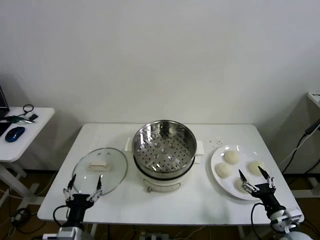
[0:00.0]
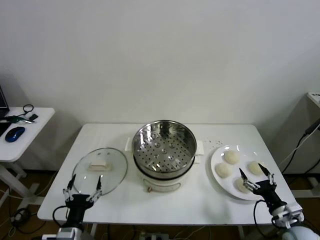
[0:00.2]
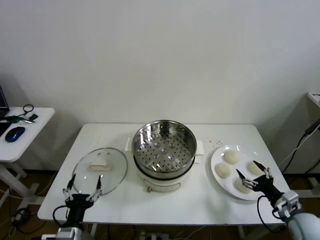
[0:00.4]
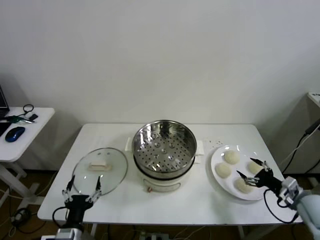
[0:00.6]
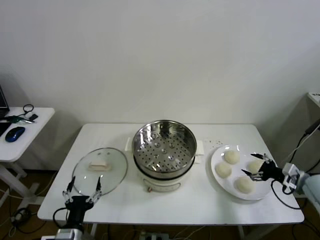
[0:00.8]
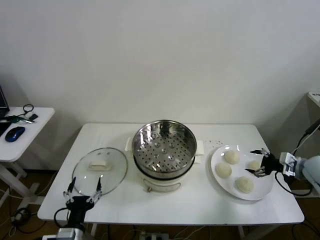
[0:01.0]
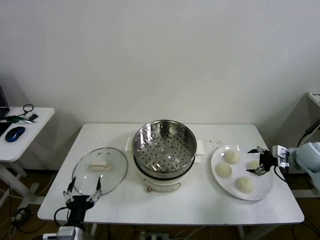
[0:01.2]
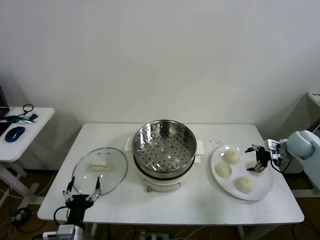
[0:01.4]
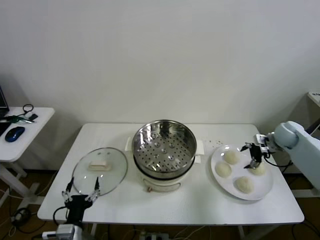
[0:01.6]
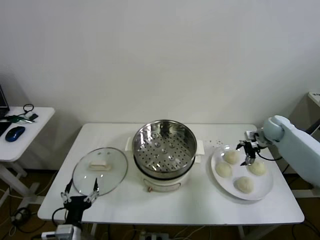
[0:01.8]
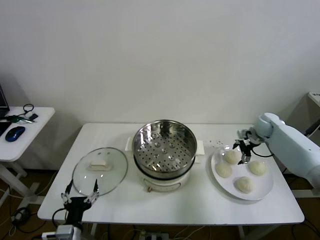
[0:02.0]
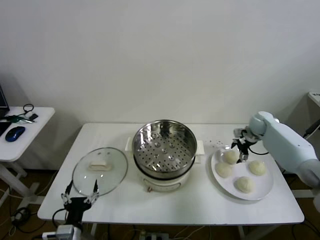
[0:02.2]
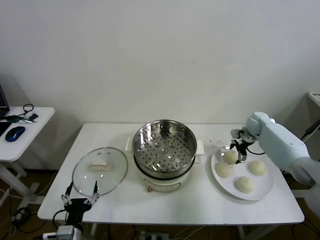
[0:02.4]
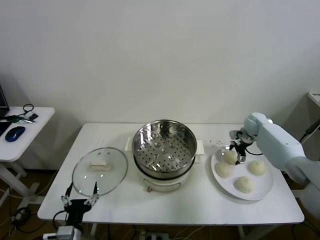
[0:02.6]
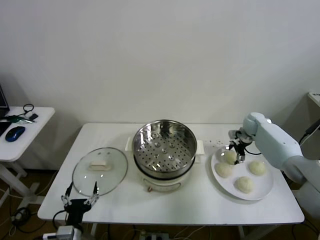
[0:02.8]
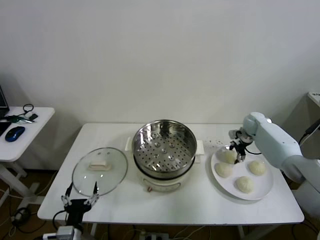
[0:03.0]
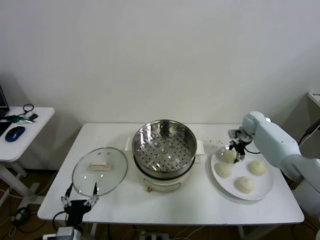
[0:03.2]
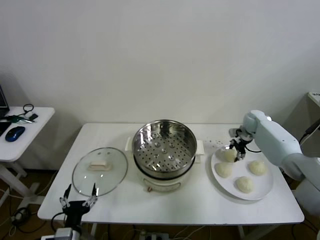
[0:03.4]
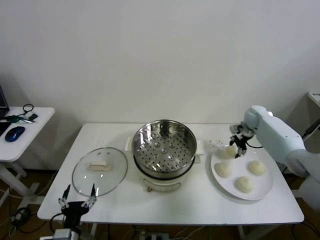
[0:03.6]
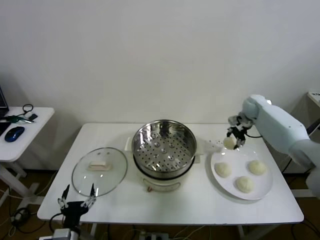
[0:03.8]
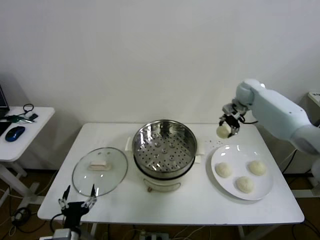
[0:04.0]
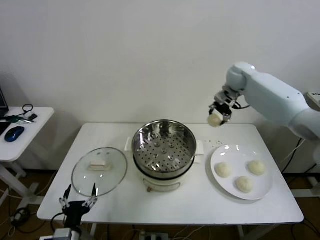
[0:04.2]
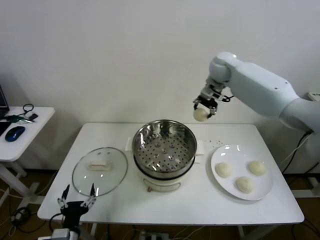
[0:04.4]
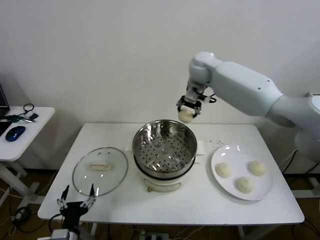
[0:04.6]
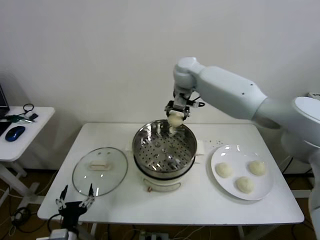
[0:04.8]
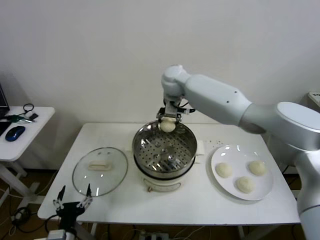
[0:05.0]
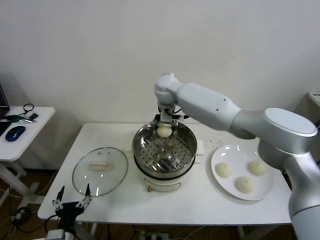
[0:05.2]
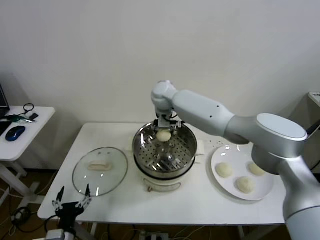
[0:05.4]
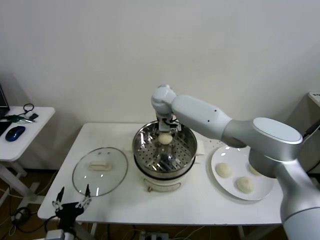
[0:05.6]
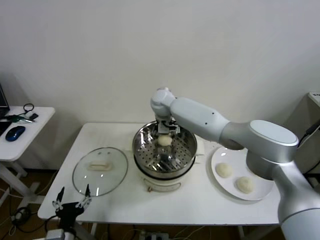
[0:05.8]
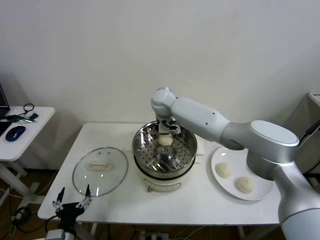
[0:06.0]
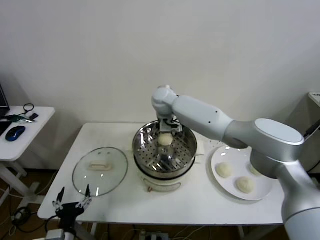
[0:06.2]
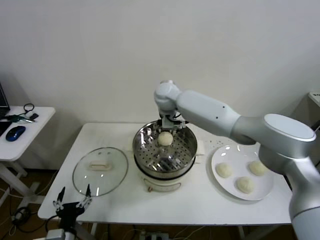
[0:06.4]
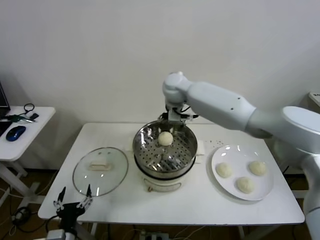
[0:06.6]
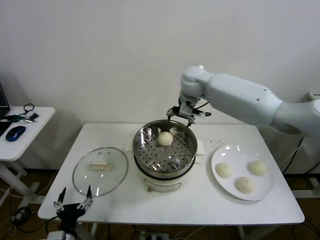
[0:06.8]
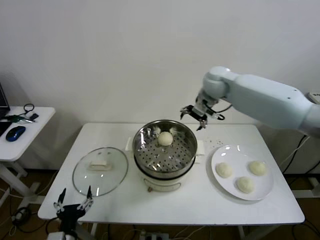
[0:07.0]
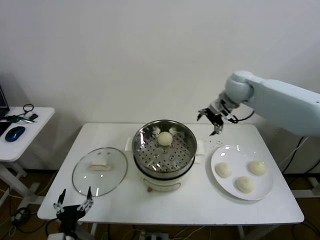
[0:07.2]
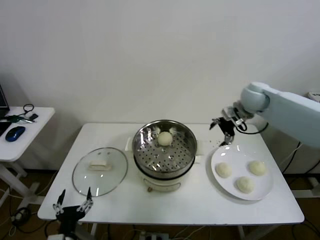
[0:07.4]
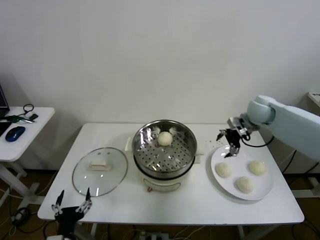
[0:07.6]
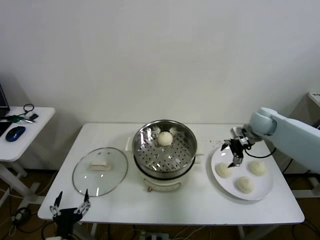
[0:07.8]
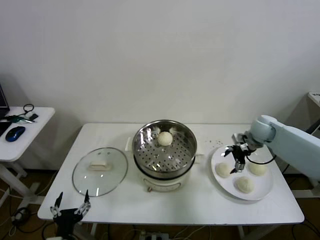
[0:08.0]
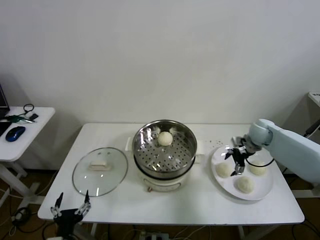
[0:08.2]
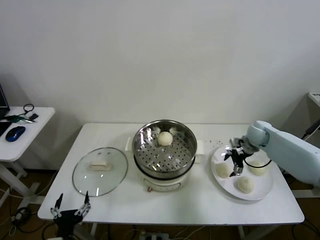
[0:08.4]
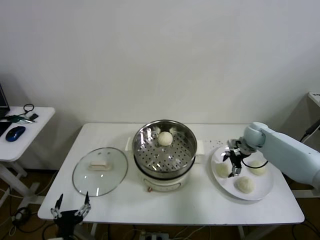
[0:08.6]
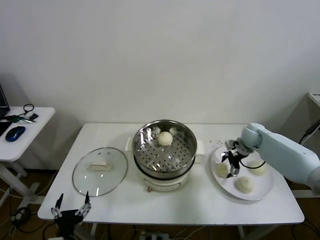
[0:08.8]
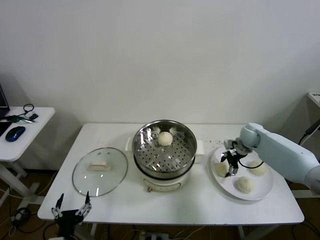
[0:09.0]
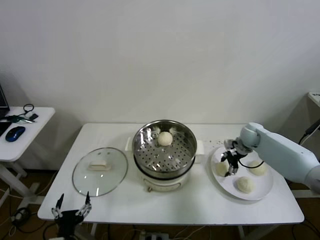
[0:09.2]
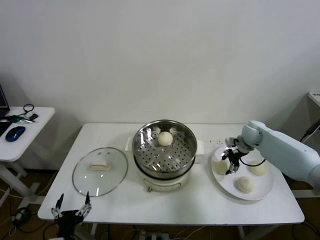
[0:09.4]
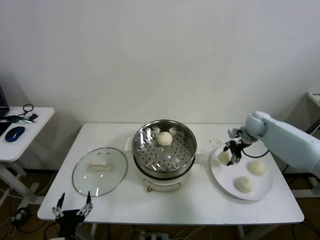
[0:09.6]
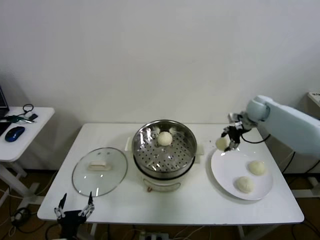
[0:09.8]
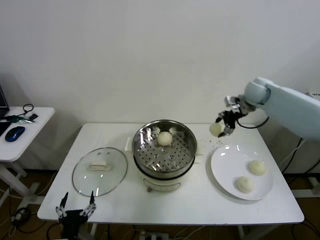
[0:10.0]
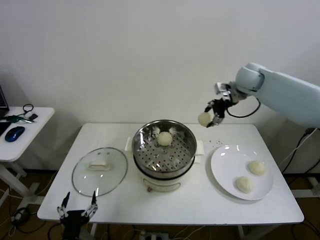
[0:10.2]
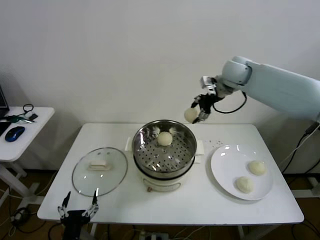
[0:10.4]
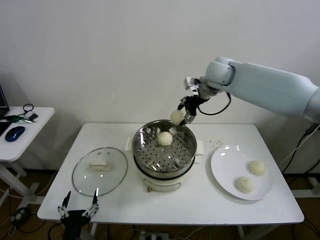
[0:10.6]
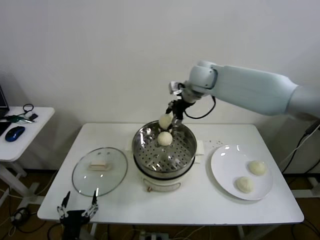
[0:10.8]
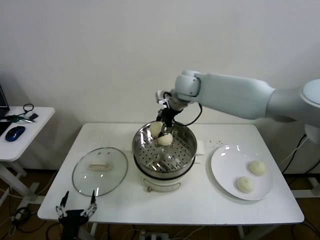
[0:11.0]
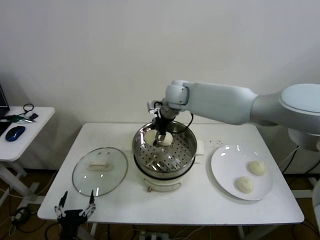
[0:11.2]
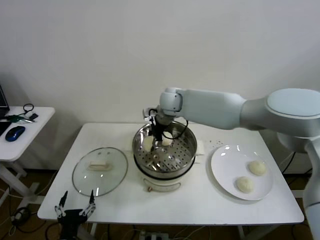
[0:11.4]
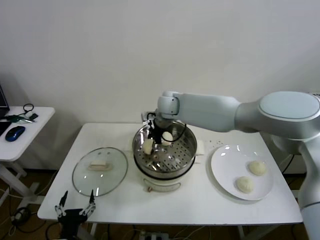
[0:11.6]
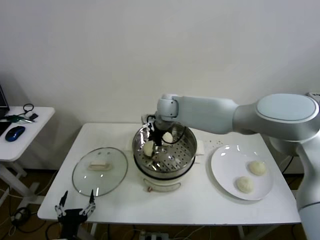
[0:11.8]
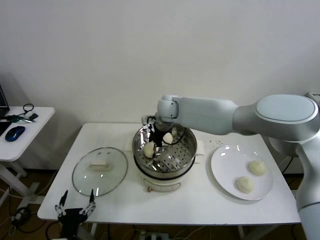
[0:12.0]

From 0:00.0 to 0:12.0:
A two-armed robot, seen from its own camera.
Step, from 0:00.0 to 0:03.0: Grasp the baozi in the plate with right gripper.
Step, from 0:03.2 to 0:06.0: Place the baozi on the steamer with right gripper.
Step, from 0:06.2 to 0:09.2: Grasp the baozi in the plate with right gripper.
From 0:01.6 to 0:03.0: The right gripper shifts roughly 10 cm forward and to the left, and closes.
From 0:03.0 to 0:04.4: The right gripper heads upward and to the left, covering about 30 cm.
From 0:04.4 to 0:06.0: The right gripper travels to the left and downward by some 25 cm, and opens its fingers.
From 0:06.0 to 0:07.6: The right gripper moves to the right, some 35 cm.
From 0:07.6 to 0:09.0: The right gripper travels downward by roughly 15 cm, and closes its fingers.
From 0:09.0 to 0:10.4: The right gripper is displaced upward and to the left by about 30 cm.
From 0:10.4 to 0:12.0: The right gripper shifts approximately 25 cm to the left and downward, and opens its fingers.

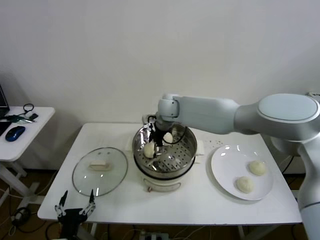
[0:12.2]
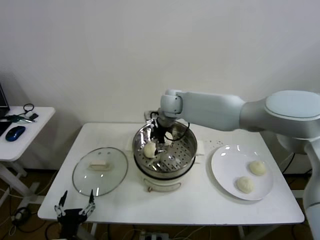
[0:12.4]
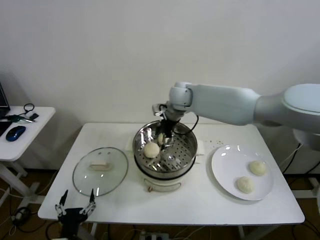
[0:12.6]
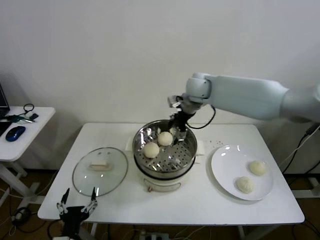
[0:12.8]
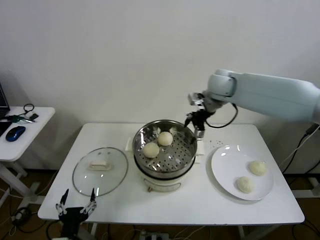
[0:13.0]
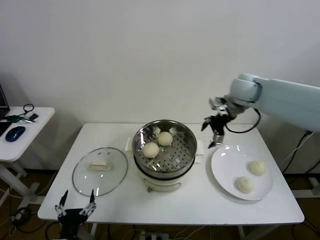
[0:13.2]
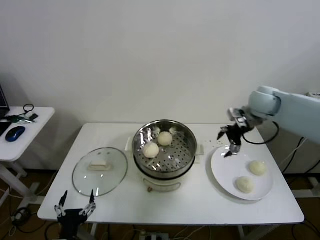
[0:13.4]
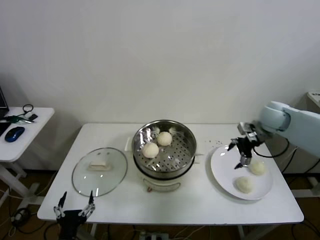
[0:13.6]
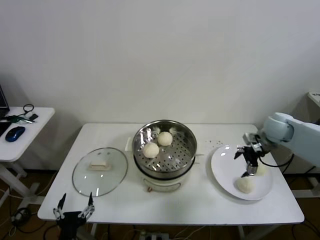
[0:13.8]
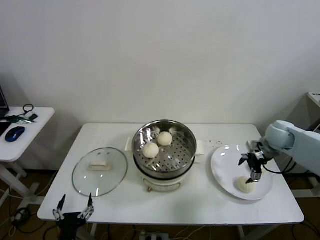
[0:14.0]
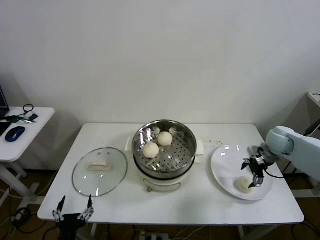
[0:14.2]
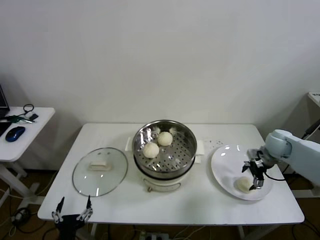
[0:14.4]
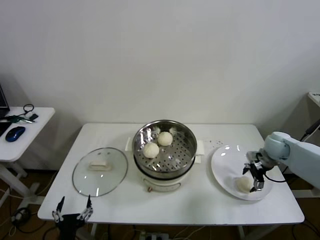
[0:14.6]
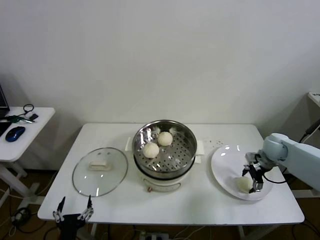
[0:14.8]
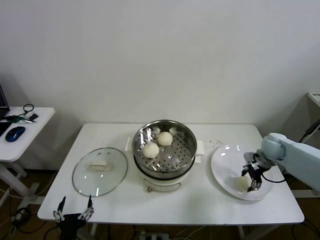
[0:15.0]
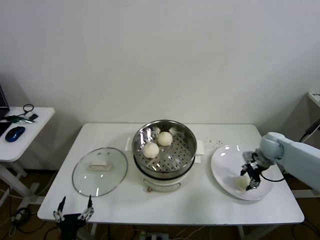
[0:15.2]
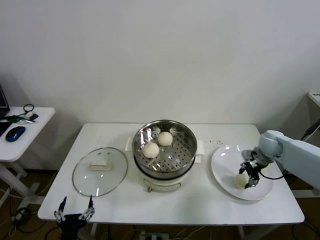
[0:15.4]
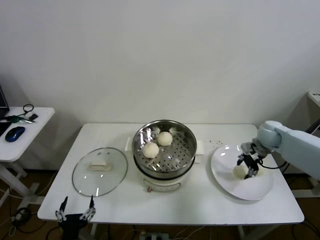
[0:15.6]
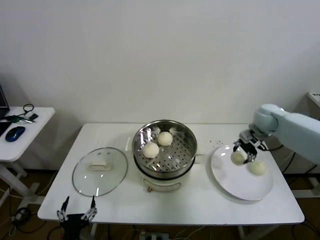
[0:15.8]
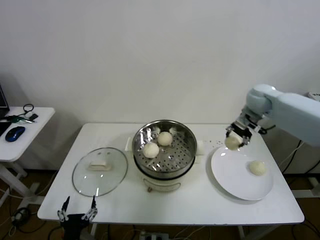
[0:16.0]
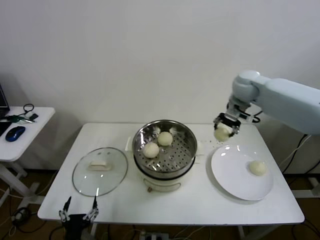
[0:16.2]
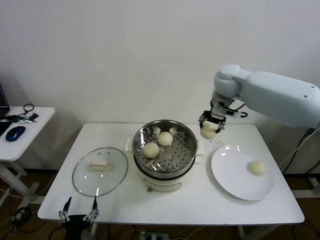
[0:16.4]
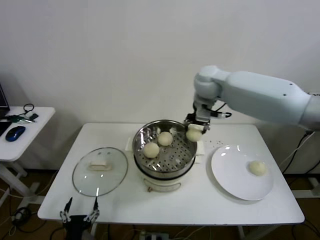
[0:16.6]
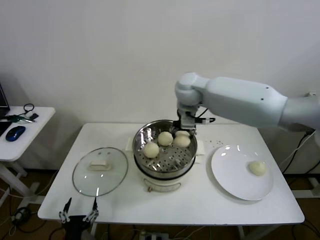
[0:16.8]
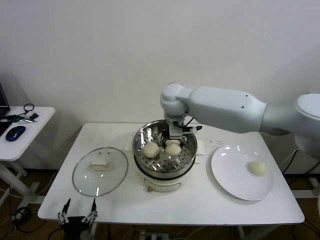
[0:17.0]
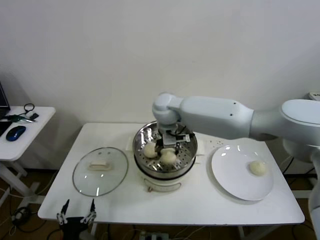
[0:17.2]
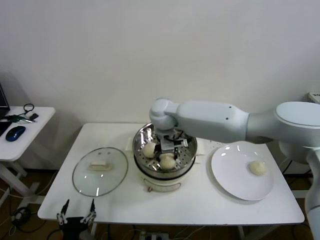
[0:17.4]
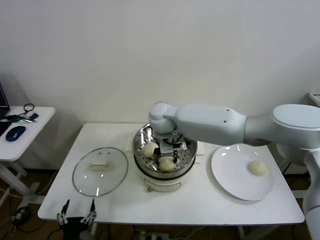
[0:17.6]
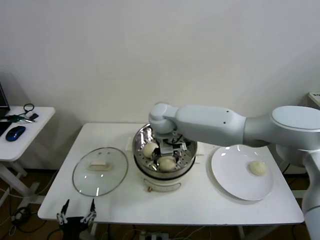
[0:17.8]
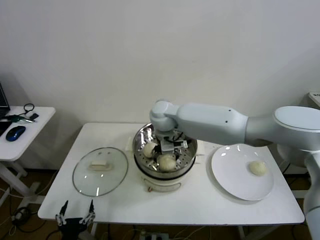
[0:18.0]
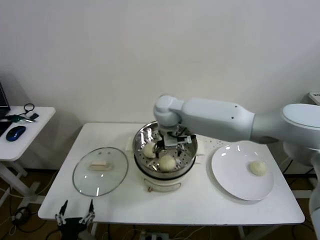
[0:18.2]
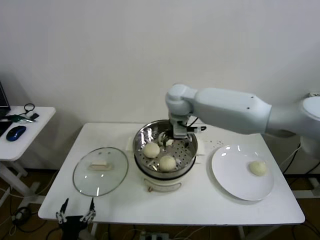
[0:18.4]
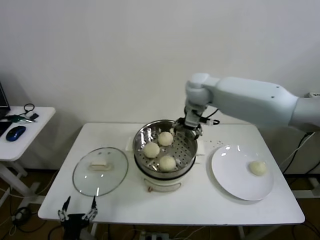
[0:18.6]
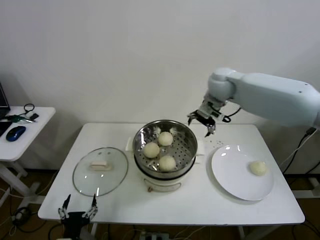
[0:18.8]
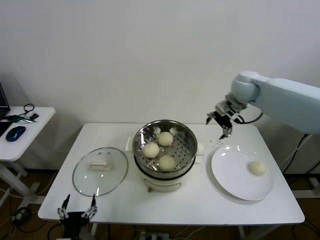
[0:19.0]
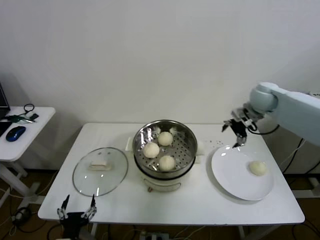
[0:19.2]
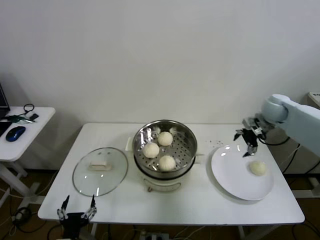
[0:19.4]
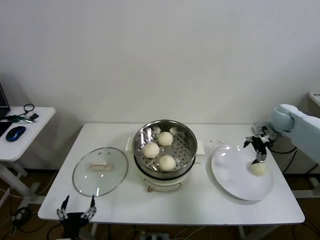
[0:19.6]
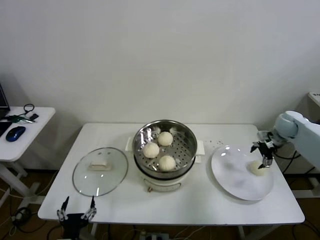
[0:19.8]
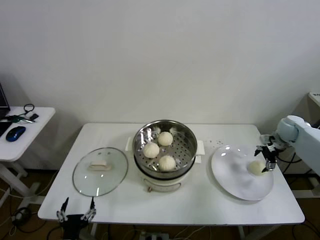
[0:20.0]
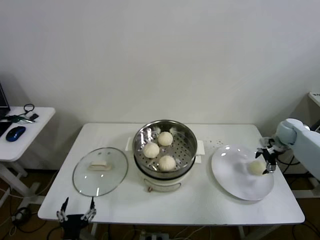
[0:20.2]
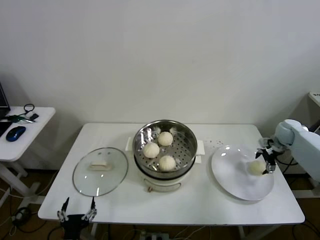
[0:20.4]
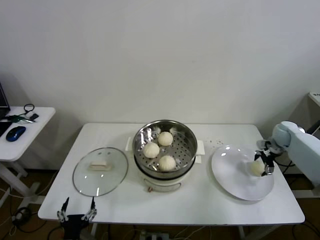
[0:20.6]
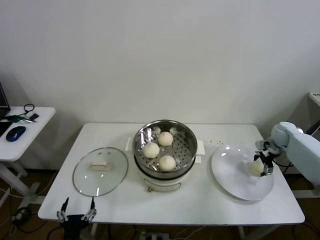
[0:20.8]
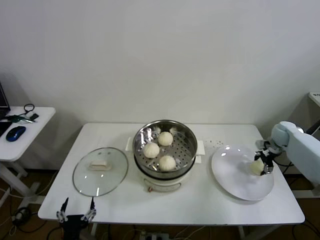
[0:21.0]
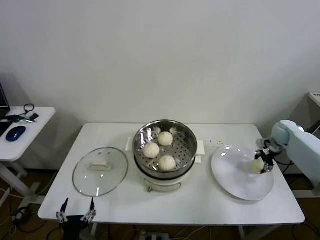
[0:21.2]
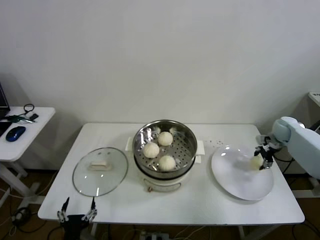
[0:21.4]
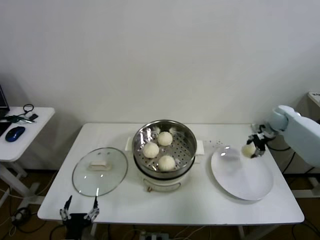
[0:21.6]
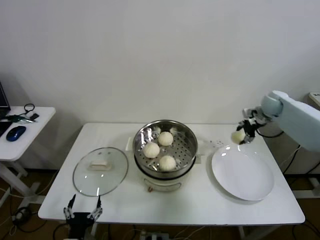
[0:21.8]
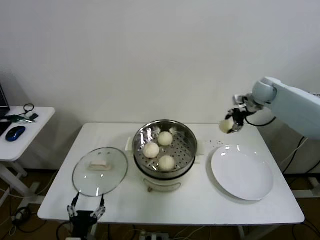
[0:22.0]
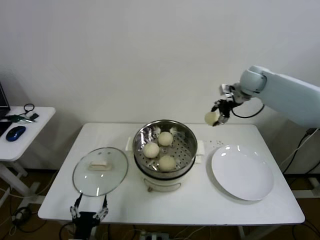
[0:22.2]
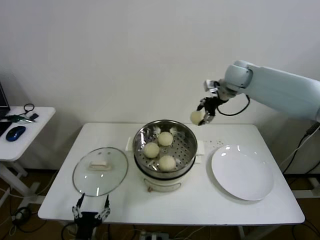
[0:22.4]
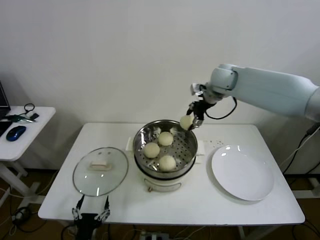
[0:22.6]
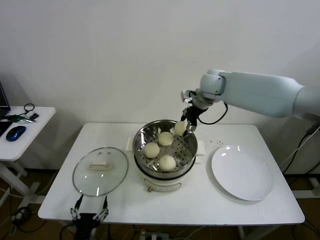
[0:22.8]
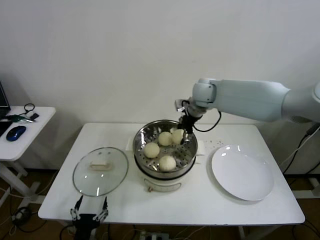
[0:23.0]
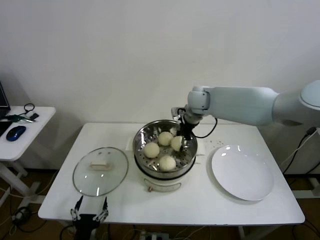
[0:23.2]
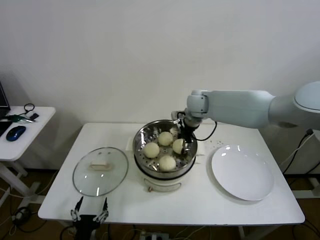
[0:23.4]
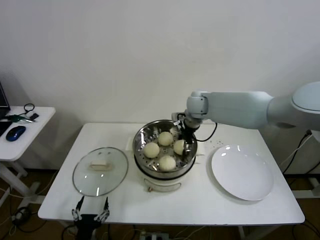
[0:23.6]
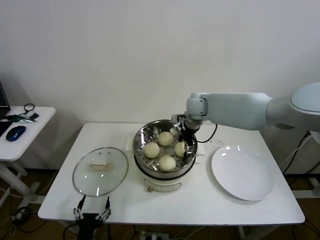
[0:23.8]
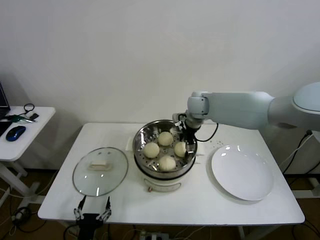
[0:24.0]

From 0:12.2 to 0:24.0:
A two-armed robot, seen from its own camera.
Step, from 0:12.4 to 0:15.2: Grasp the baozi in the plate with right gripper.
Step, from 0:15.4 to 0:17.8: Place the baozi on the steamer with right gripper.
Step, from 0:18.0 to 0:20.8: Grasp the baozi in the plate with right gripper.
Step, from 0:21.0 to 0:23.8: Place the baozi on the steamer with right gripper.
From 0:12.2 to 0:13.6: The right gripper shifts roughly 35 cm to the right.
From 0:13.6 to 0:15.2: The right gripper heads downward, covering about 15 cm, and closes.
From 0:15.2 to 0:16.6: The right gripper shifts about 35 cm to the left and upward.
From 0:16.6 to 0:18.2: The right gripper travels to the left and downward by roughly 15 cm, and opens its fingers.
From 0:18.2 to 0:19.6: The right gripper is displaced to the right by about 40 cm.
From 0:19.6 to 0:21.0: The right gripper shifts some 10 cm downward and to the right, and closes its fingers.
From 0:21.0 to 0:22.6: The right gripper is displaced to the left and upward by about 35 cm.
From 0:22.6 to 0:24.0: The right gripper heads downward and to the left, covering about 10 cm, and opens.
